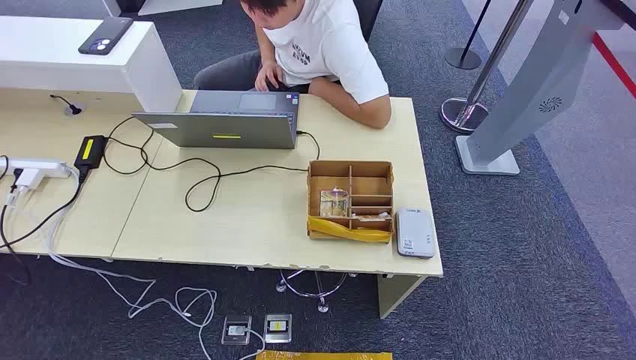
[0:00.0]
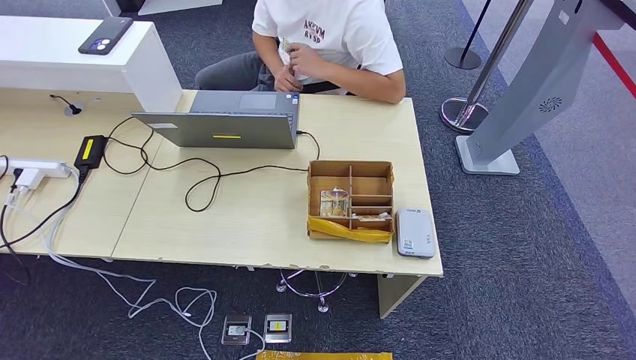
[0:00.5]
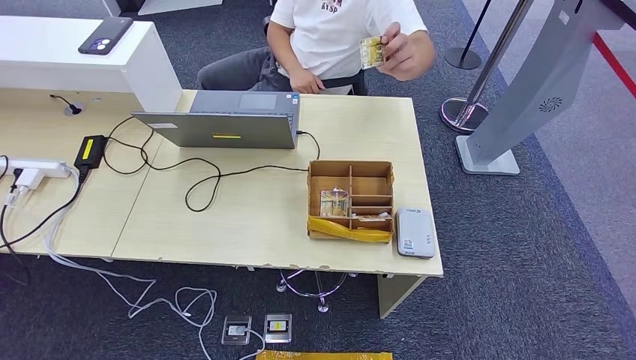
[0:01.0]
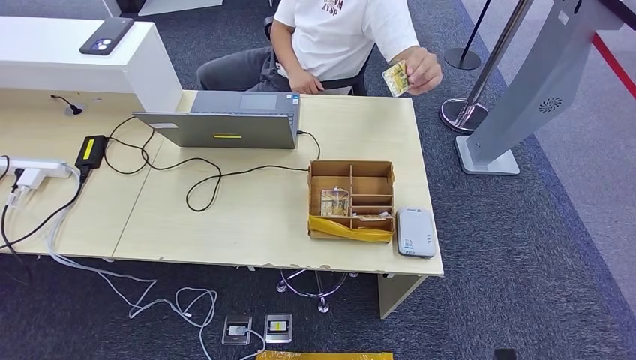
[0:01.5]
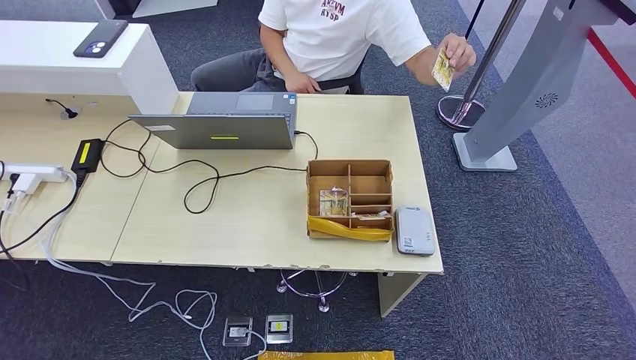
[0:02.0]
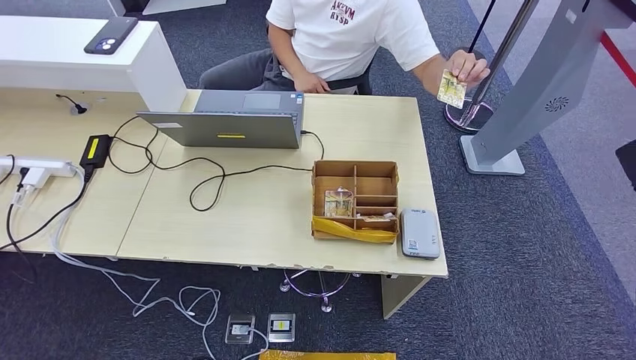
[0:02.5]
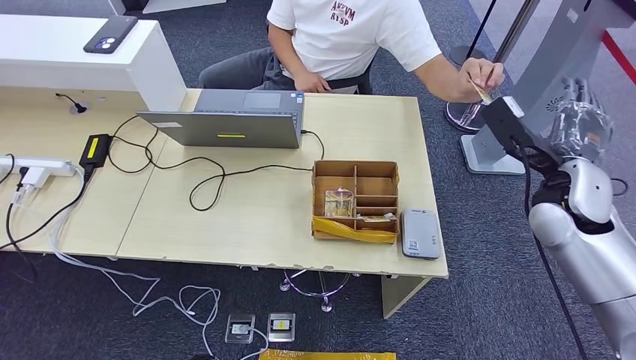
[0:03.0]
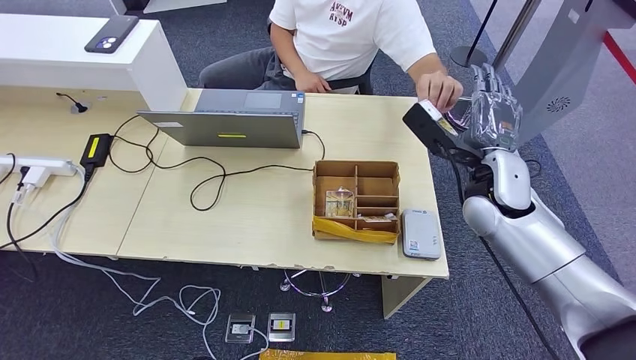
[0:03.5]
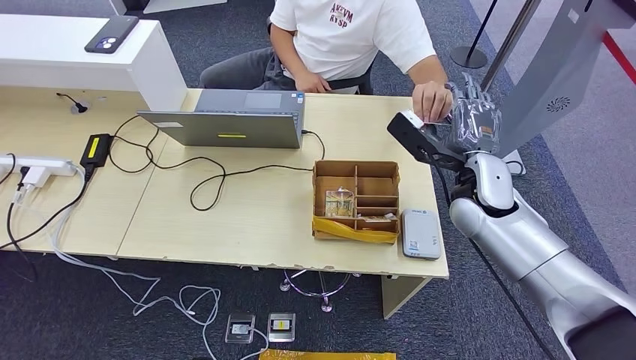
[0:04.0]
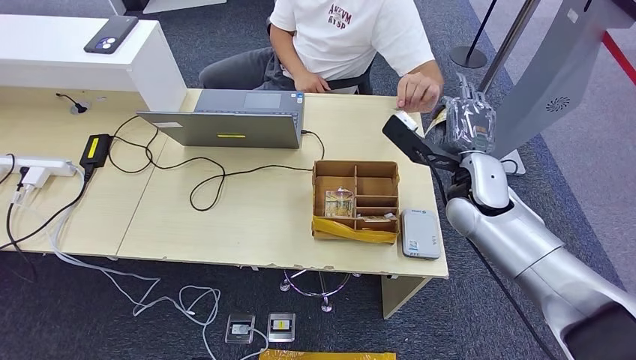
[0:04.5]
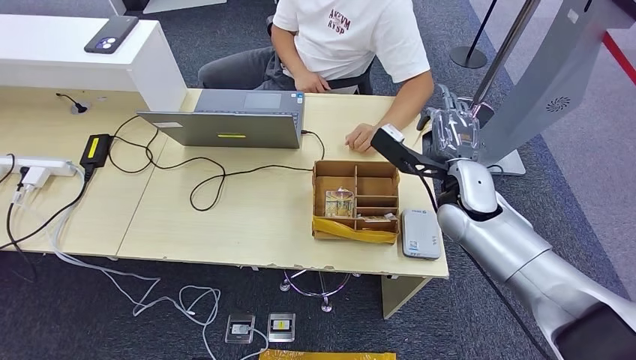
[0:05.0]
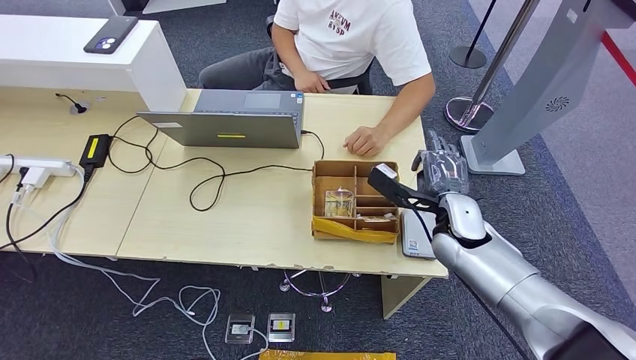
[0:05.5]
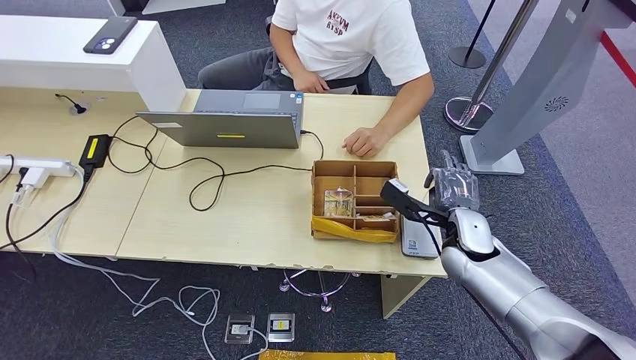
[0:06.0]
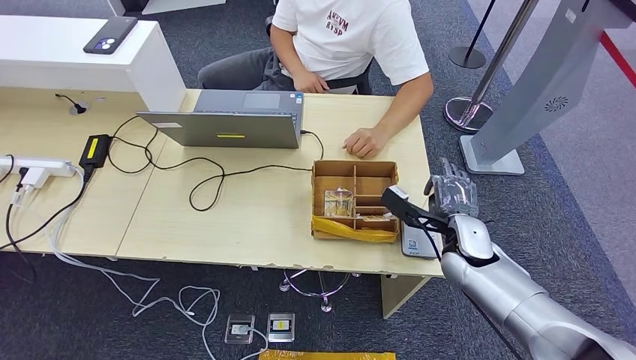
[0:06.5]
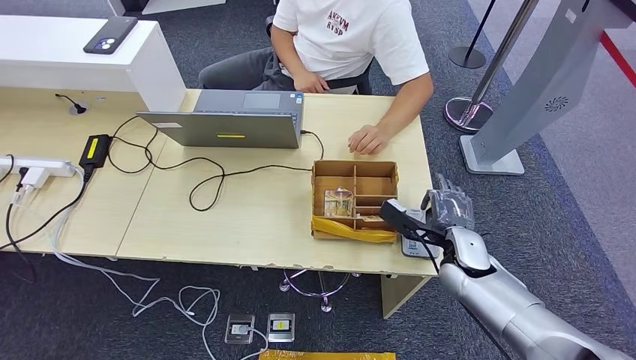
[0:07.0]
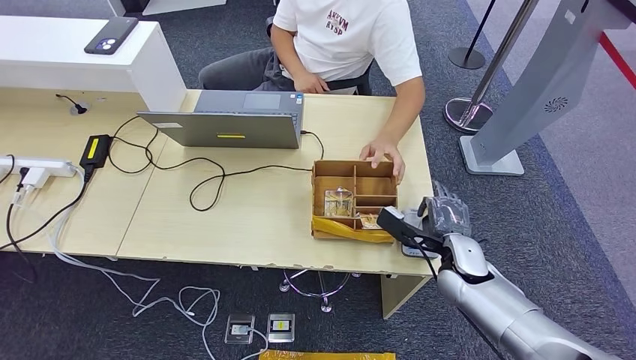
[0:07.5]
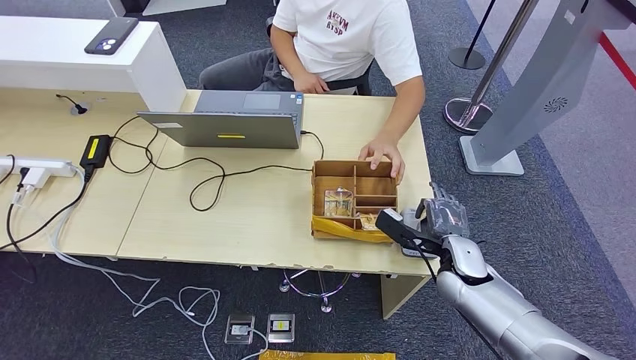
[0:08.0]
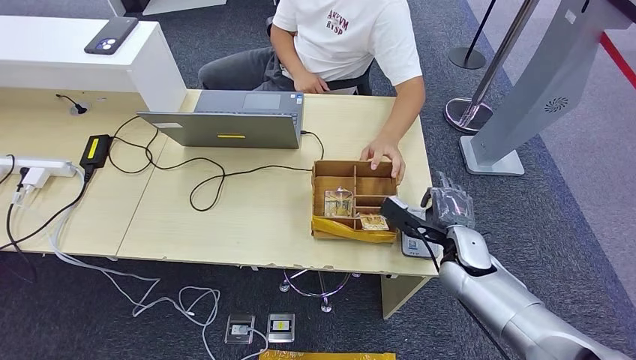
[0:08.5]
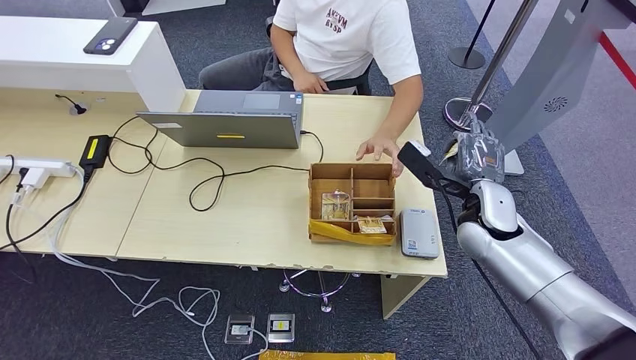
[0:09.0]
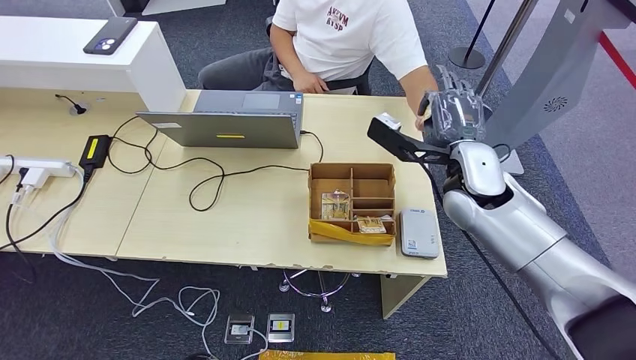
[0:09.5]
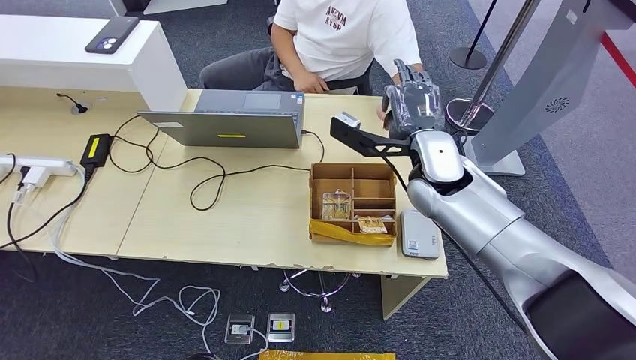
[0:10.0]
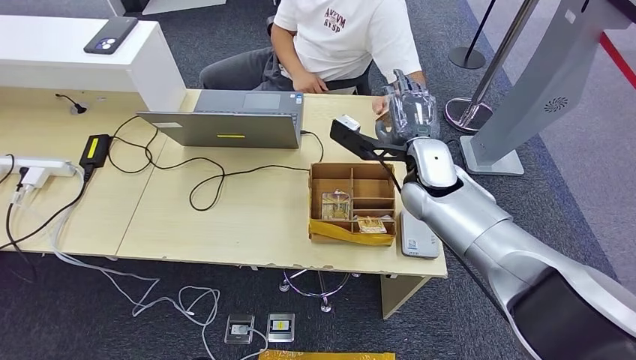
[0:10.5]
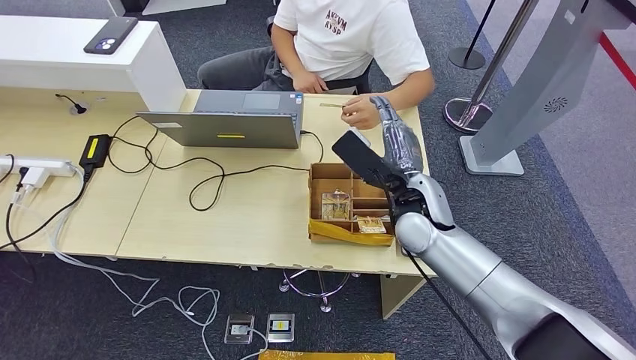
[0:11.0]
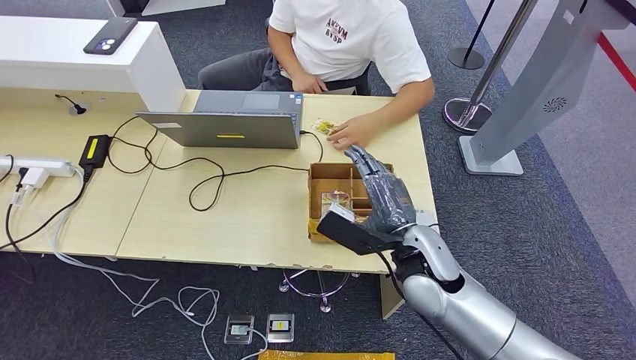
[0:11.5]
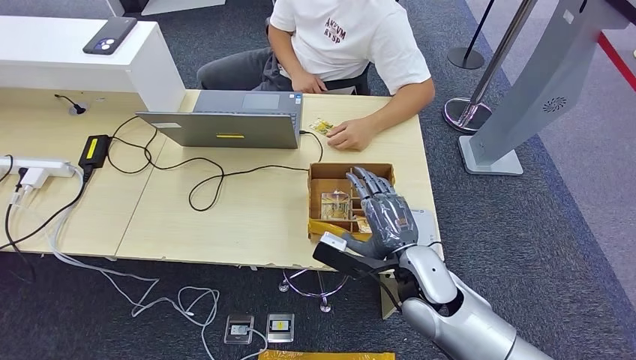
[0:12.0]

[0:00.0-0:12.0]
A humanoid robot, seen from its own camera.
Step, 0:00.0 to 0:04.0: Take the ID card from the person's hand.
Step, 0:04.5 to 0:08.0: Place the ID card on the card reader.
Step, 0:08.5 to 0:11.0: Hand the ID card to the person.
0:04.0 to 0:06.0: The right hand is displaced downward by some 10 cm.
0:06.0 to 0:08.0: The right hand moves approximately 5 cm.
0:08.0 to 0:10.0: The right hand travels upward, to the left and forward by roughly 20 cm.

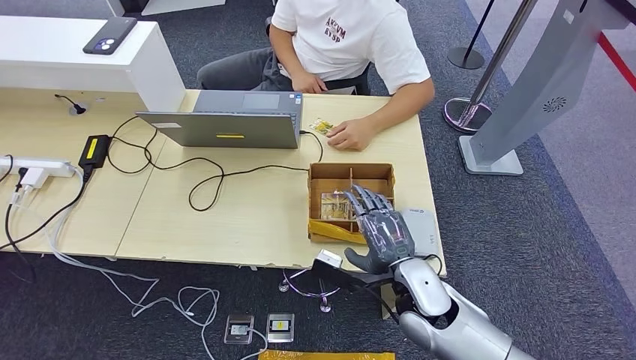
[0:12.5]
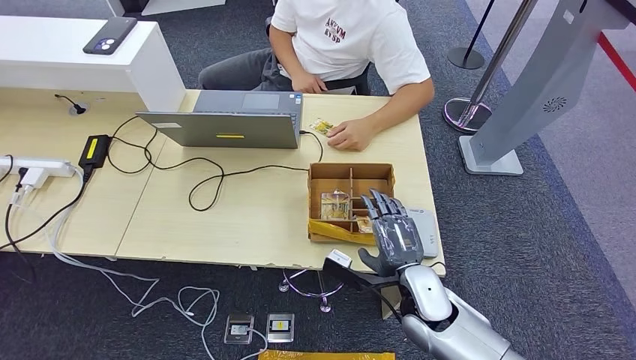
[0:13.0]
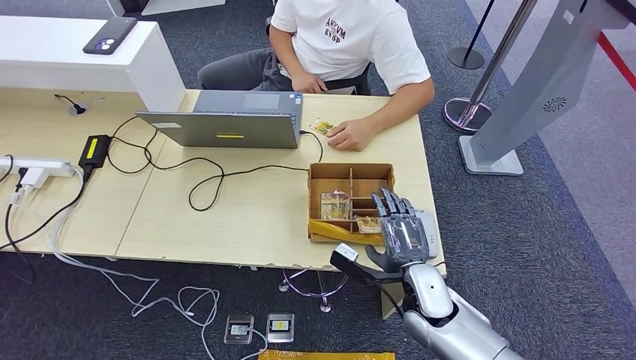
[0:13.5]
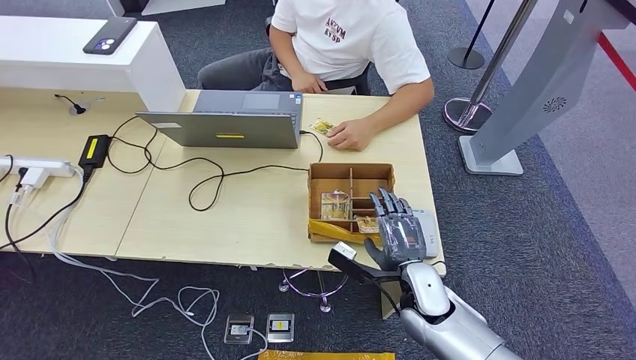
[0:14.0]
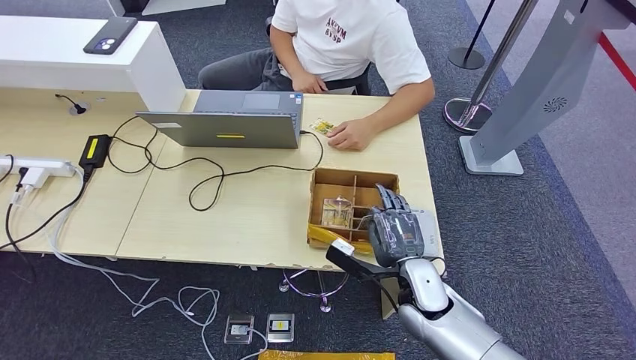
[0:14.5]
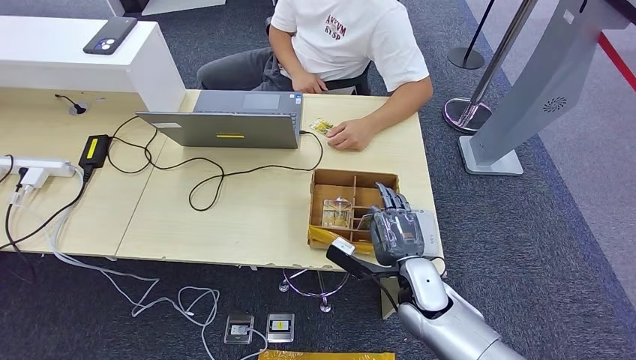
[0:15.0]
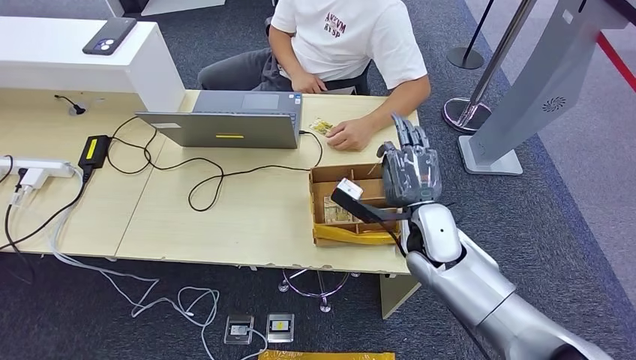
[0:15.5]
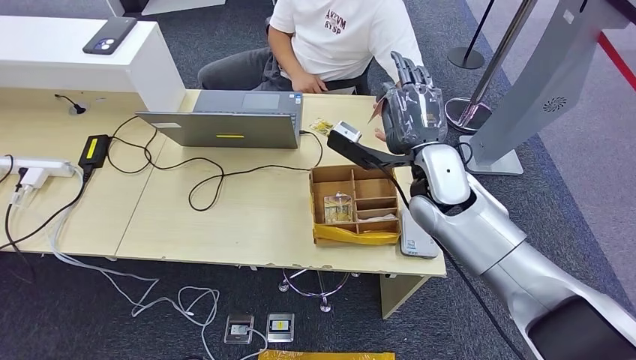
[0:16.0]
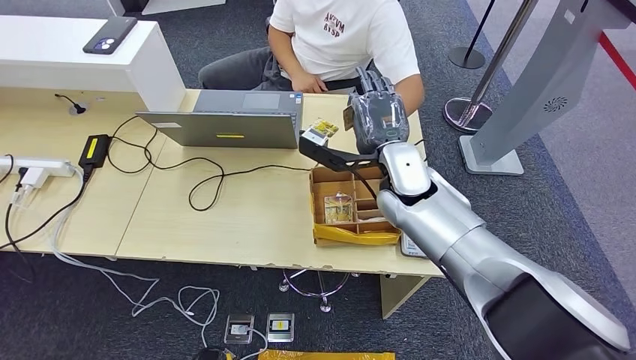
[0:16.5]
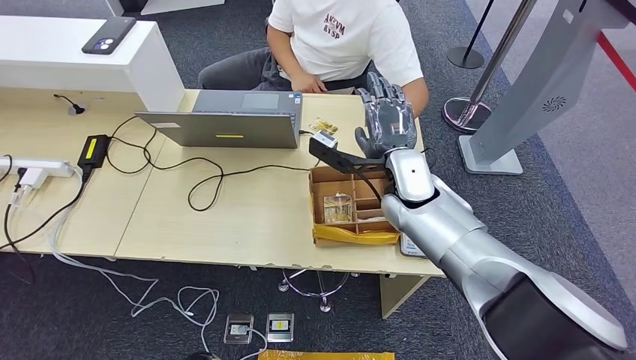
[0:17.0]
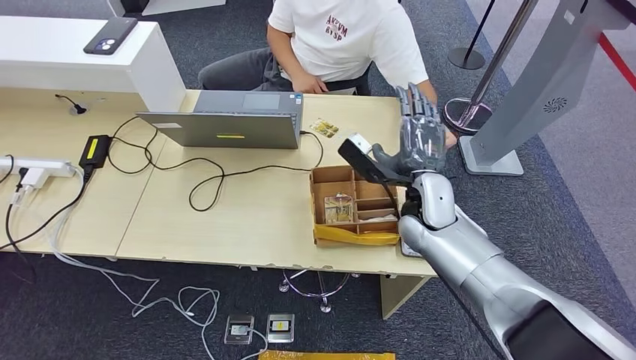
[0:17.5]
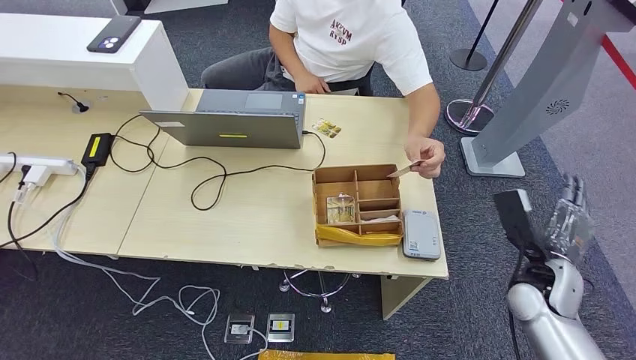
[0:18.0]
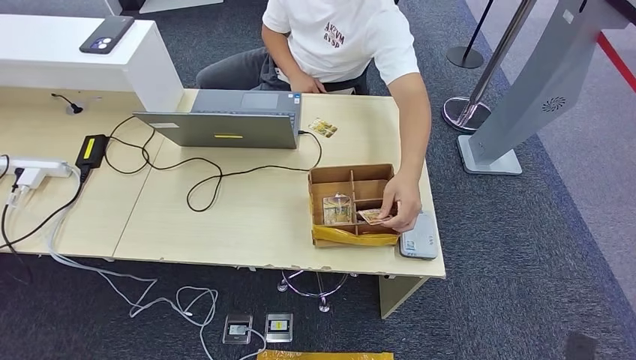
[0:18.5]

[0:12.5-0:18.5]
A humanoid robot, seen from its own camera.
Step, 0:12.5 to 0:15.5: Pick up the room key from the key card box.
Step, 0:16.0 to 0:18.5: Hand the room key to the person.
0:12.5 to 0:14.5: The right hand changes place by roughly 5 cm.
0:14.5 to 0:16.5: The left hand changes place by about 5 cm. The right hand shifts some 20 cm upward and forward.
0:16.5 to 0:18.5: The right hand is displaced to the right, downward and backward by some 50 cm. Meanwhile the left hand heads to the left, covering about 5 cm.
